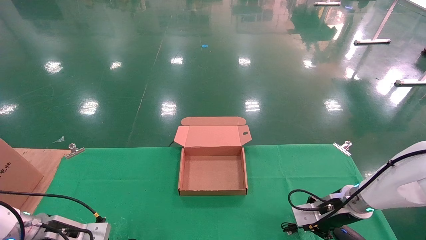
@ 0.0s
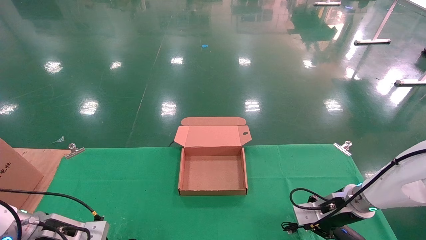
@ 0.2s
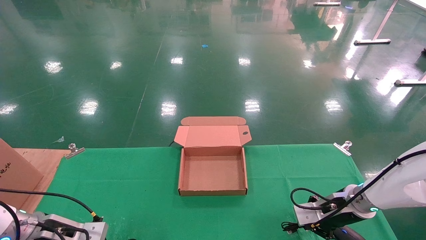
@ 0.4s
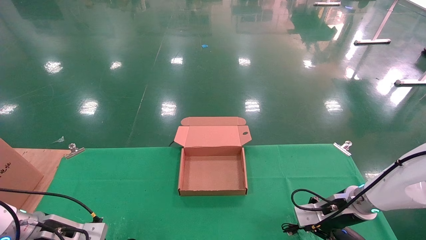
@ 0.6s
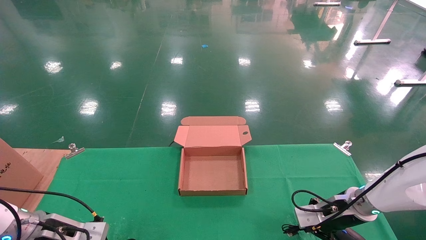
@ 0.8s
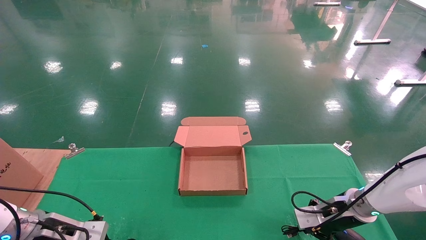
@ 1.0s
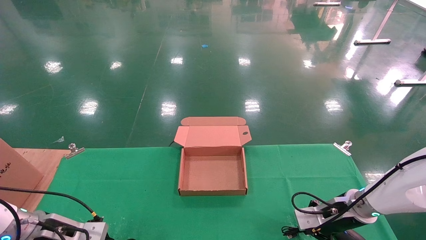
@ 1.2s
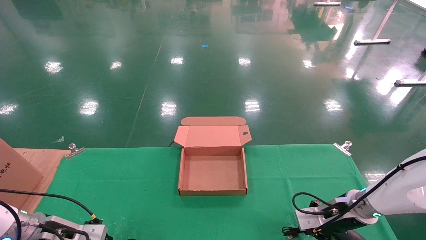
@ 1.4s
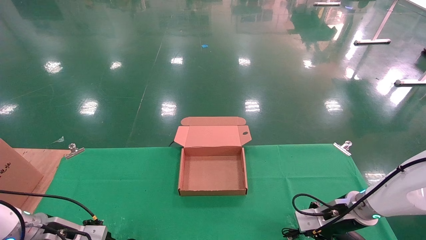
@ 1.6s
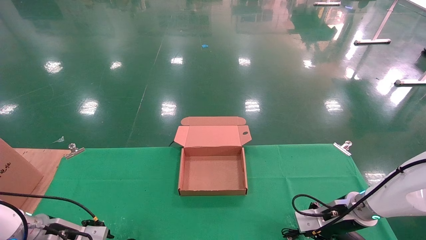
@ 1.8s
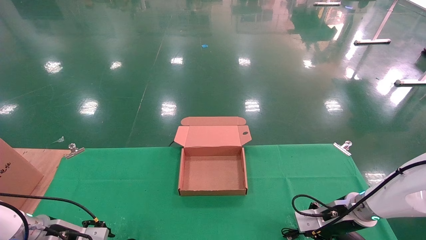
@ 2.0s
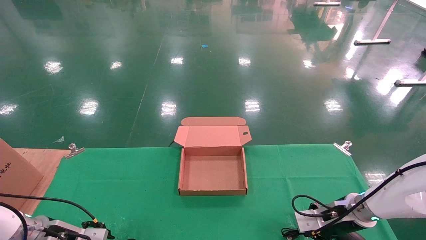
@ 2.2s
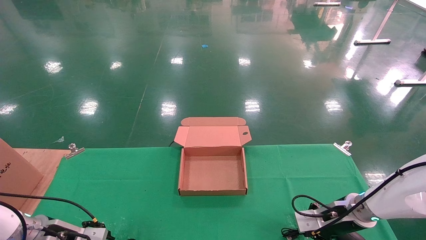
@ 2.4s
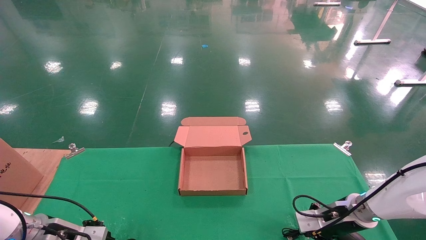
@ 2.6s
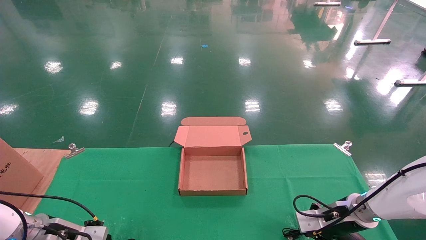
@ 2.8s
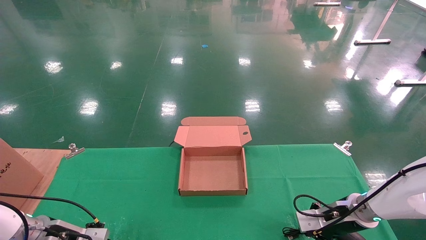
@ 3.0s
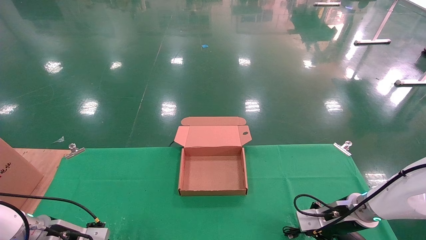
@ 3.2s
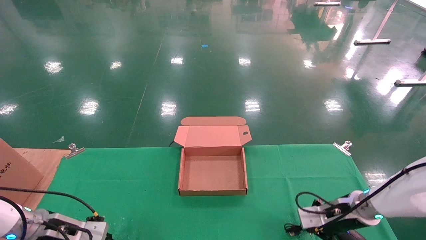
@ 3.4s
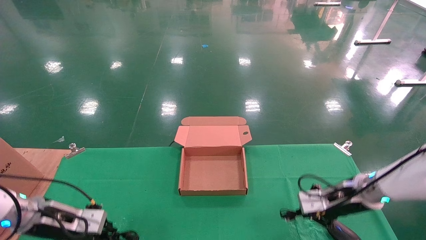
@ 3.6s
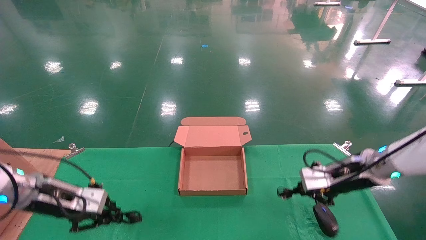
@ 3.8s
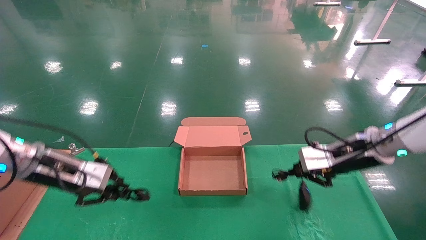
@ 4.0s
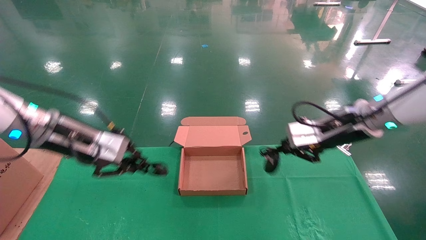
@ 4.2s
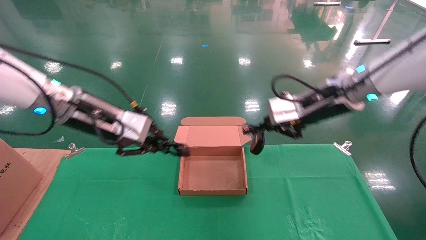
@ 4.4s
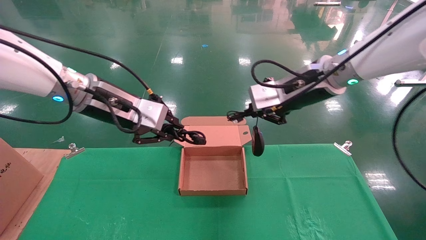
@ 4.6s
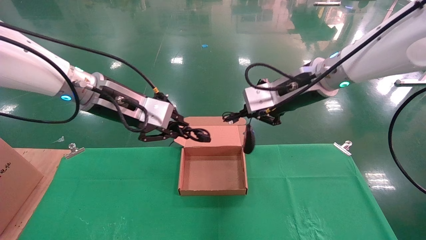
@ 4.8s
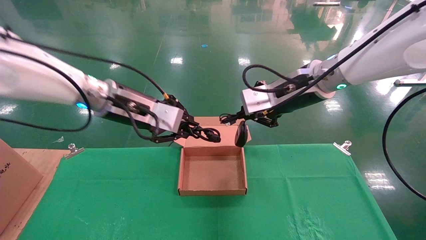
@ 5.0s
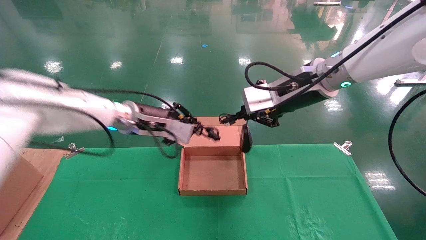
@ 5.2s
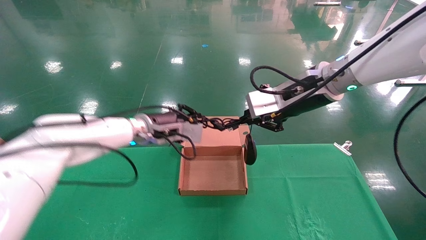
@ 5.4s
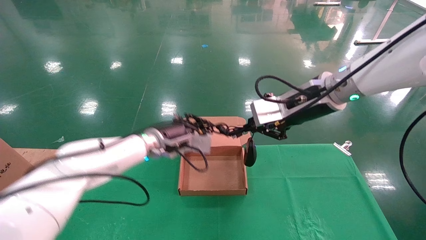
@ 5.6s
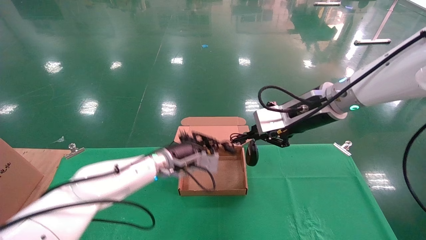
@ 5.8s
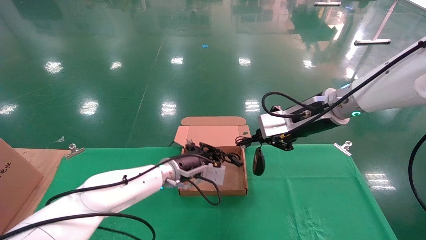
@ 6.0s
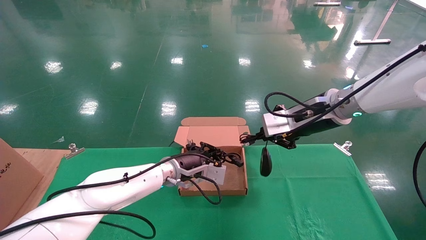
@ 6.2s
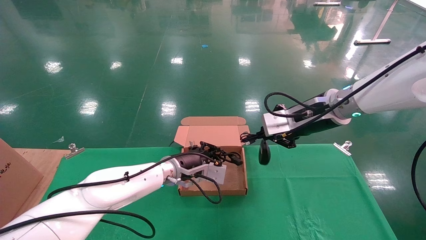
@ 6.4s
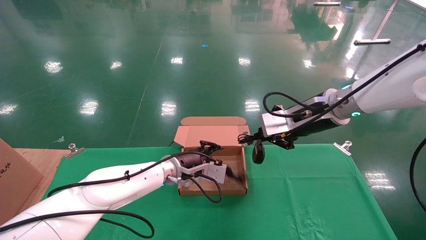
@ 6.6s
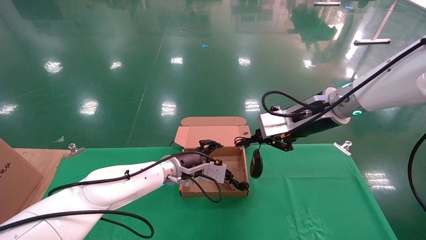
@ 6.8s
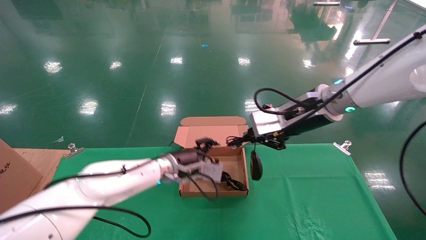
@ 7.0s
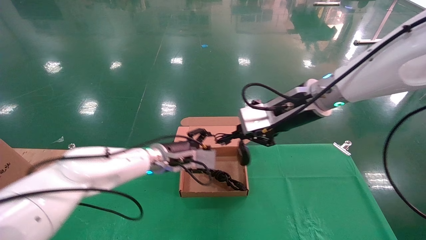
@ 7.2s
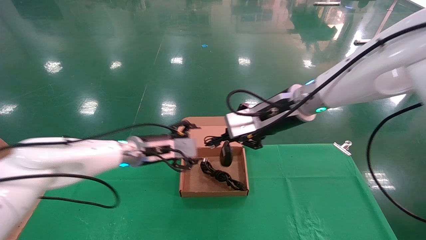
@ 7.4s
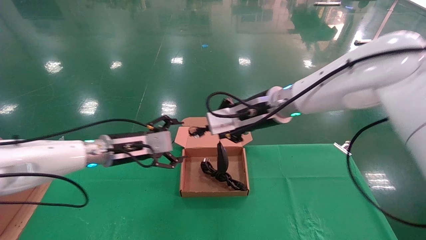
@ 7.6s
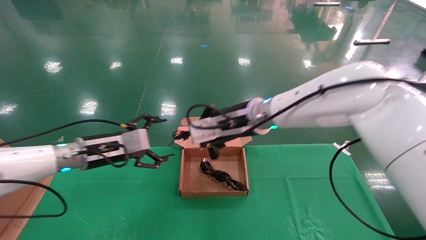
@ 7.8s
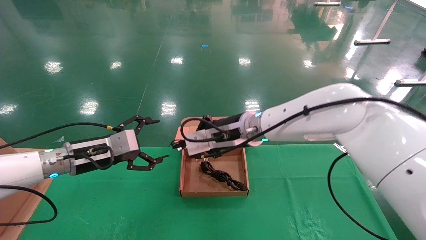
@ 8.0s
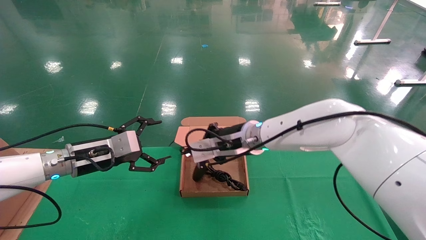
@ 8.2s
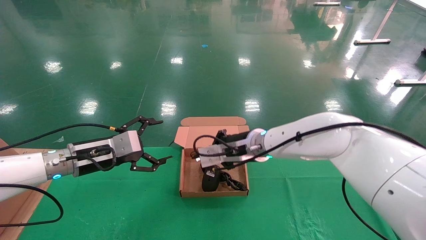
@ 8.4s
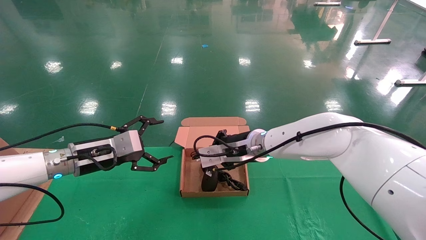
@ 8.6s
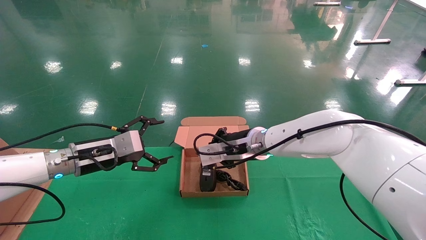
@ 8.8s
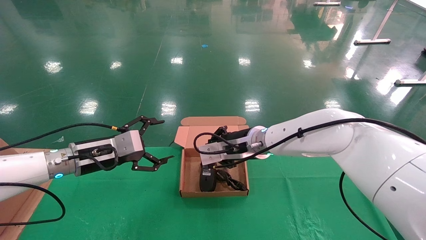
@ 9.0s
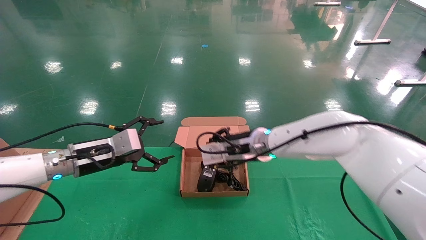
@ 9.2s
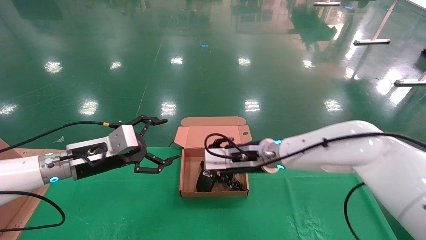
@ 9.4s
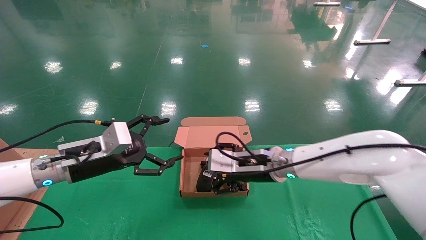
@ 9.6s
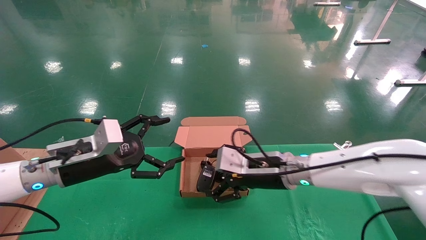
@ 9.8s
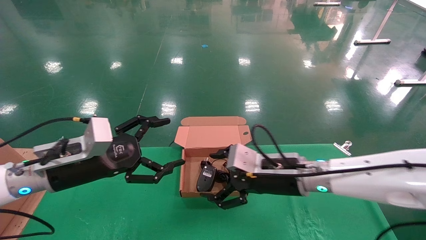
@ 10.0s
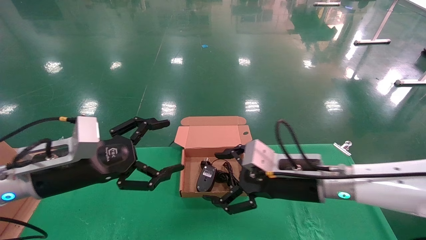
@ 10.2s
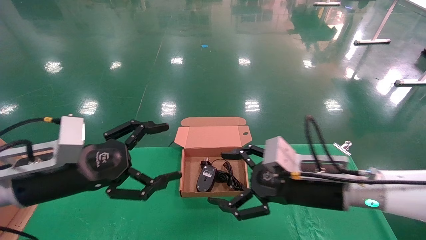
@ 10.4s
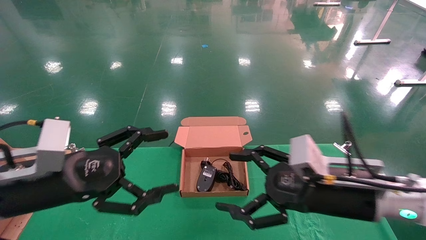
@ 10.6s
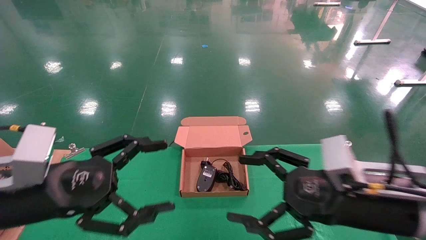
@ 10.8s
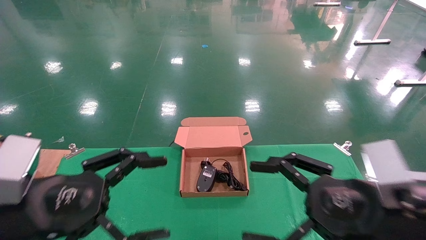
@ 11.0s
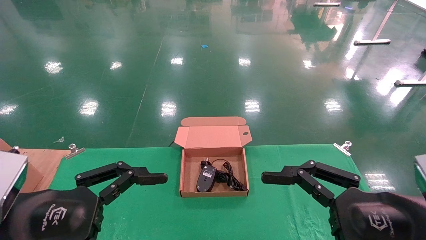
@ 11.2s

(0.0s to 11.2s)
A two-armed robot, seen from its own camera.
Step, 0.0s - 3.6s: Grab and lift both the mouse and power cord from the accessory packaging area at the same time.
Step, 3.8s - 9.8s: Place the mouse and power cord into the box.
0.0s - 1.6s: The grippers make only small movements.
1.6s - 3.2s: The left gripper opens, then closes again.
3.2s - 4.8s: The left gripper travels upward and to the right by about 35 cm. The right gripper heads upward and to the left, covering about 30 cm.
4.8s - 6.4s: The right gripper ends up about 5 cm from where it was; the left gripper shifts approximately 25 cm downward, to the right and forward.
6.4s - 8.0s: The grippers both shift to the left by roughly 15 cm. The left gripper opens.
8.0s - 9.6s: The right gripper shifts roughly 10 cm downward, and opens up.
9.6s - 11.2s: The right gripper travels backward and to the right by some 25 cm, and opens up; the left gripper moves backward, about 20 cm.
